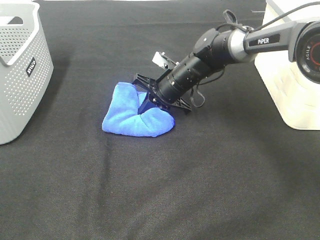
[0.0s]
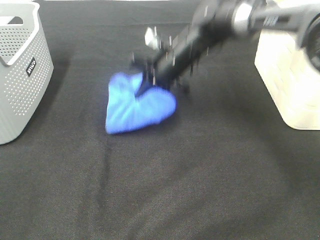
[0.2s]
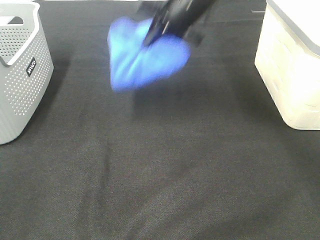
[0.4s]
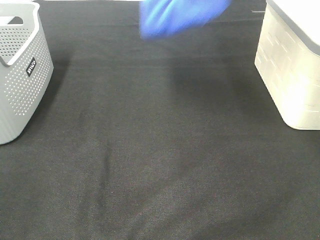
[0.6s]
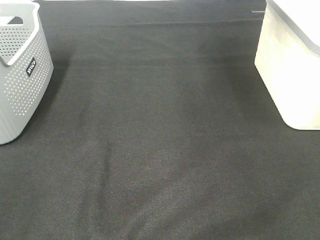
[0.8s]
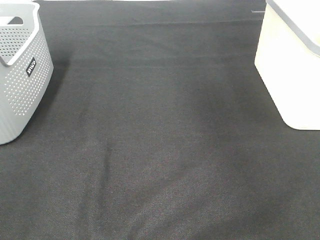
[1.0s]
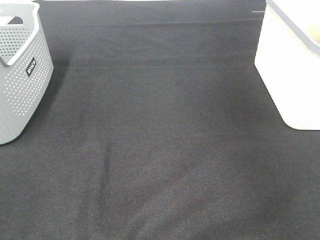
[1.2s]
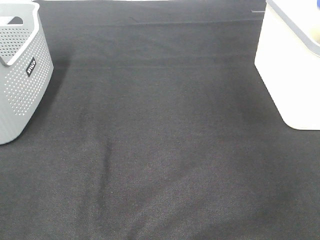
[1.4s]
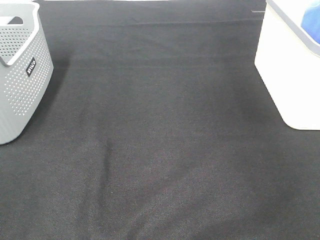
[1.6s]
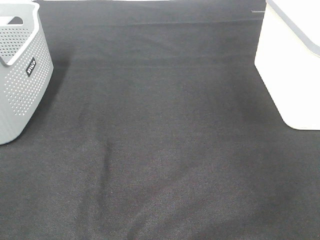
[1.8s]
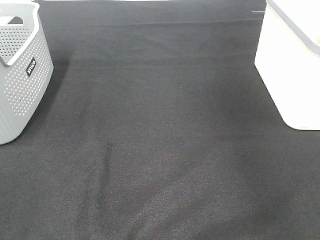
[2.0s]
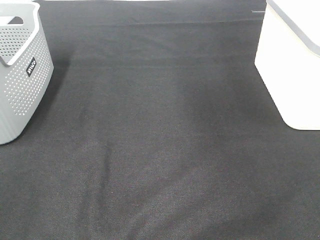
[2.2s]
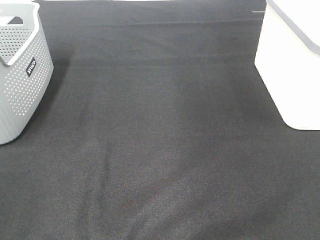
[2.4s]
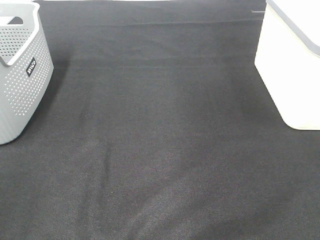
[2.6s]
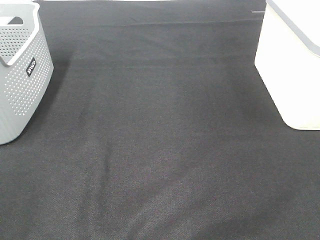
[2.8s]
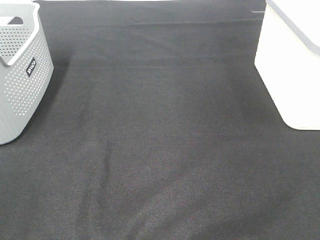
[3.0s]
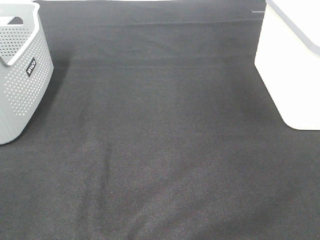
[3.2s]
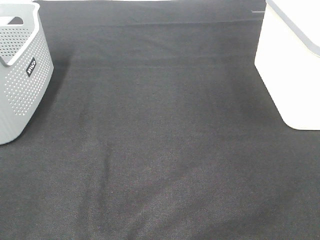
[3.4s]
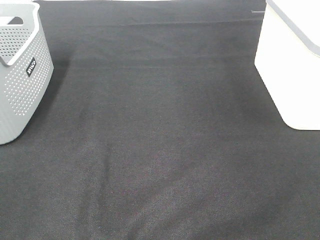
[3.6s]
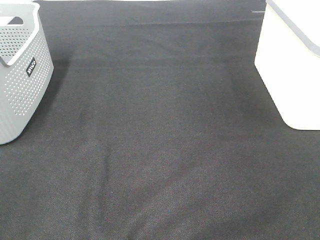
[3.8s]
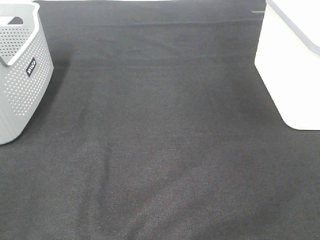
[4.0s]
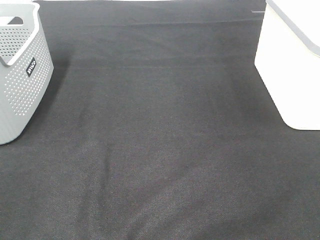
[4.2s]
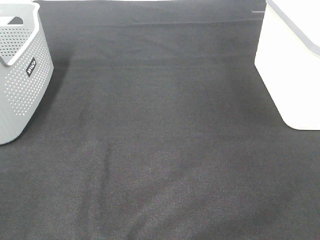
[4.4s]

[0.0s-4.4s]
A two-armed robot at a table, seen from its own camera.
Step, 0.0s to 1.6s: Right hand: place the blue towel in right basket.
0.0s to 1.4s: The right gripper shifts about 50 cm to the right and upward.
